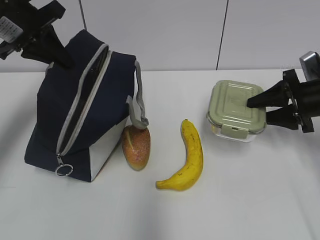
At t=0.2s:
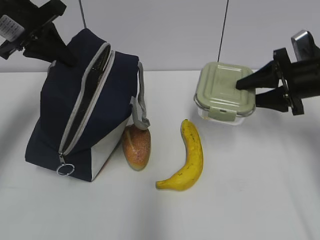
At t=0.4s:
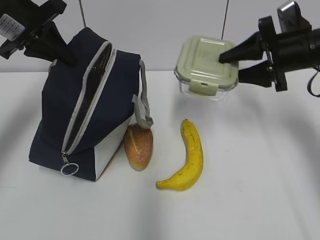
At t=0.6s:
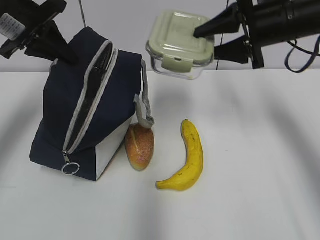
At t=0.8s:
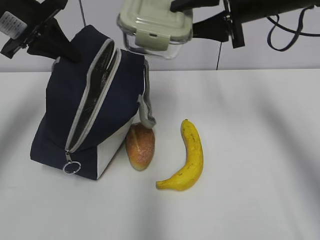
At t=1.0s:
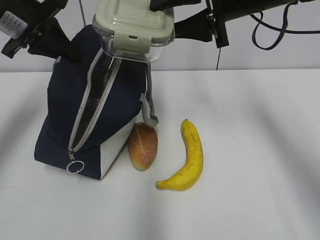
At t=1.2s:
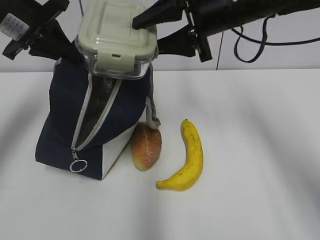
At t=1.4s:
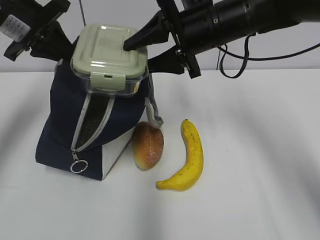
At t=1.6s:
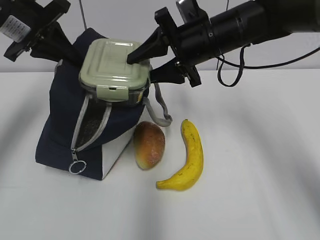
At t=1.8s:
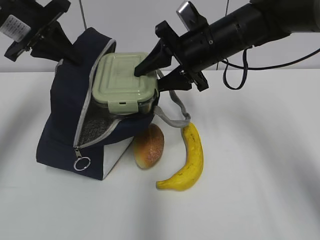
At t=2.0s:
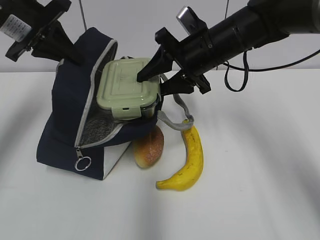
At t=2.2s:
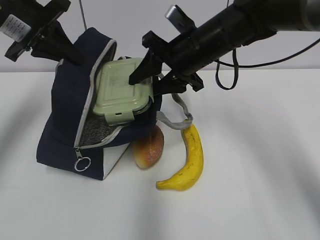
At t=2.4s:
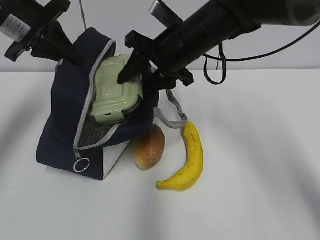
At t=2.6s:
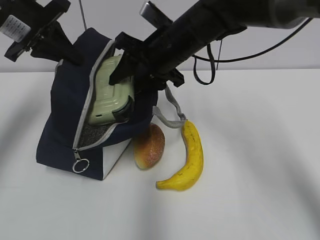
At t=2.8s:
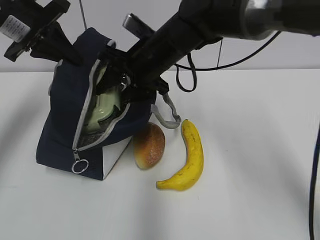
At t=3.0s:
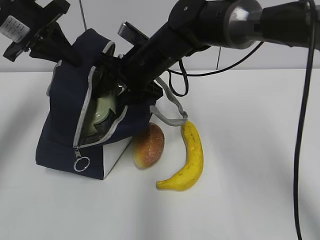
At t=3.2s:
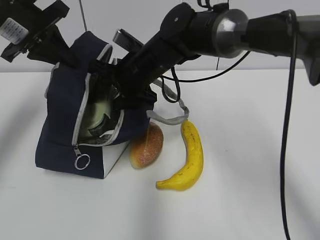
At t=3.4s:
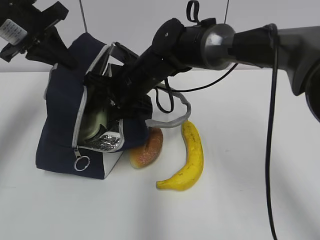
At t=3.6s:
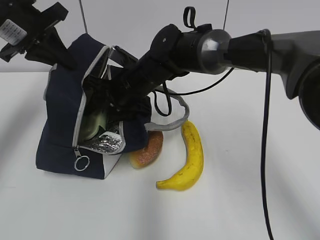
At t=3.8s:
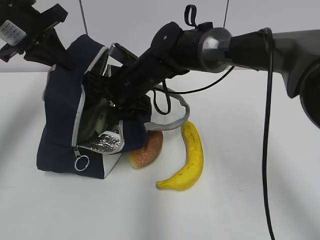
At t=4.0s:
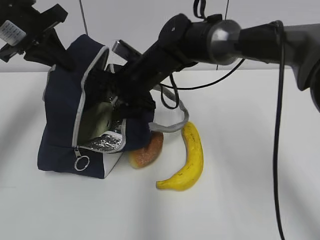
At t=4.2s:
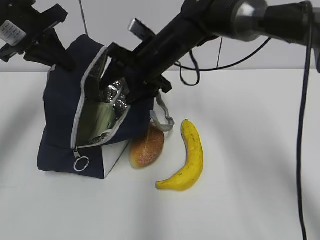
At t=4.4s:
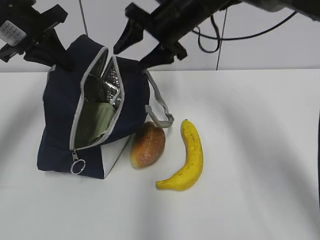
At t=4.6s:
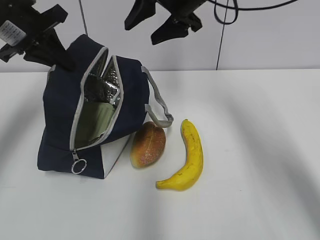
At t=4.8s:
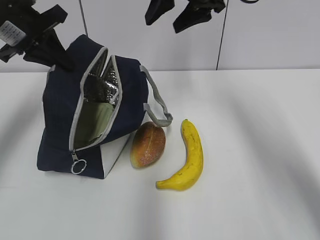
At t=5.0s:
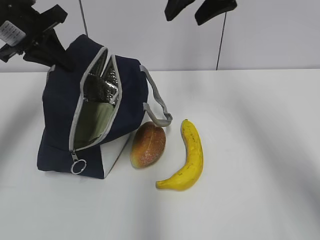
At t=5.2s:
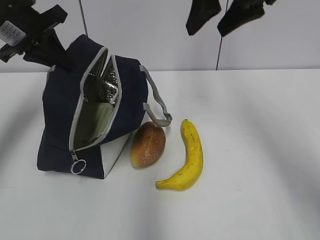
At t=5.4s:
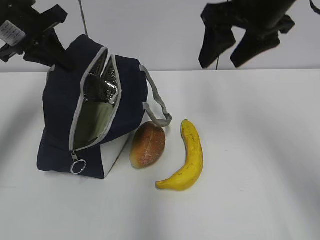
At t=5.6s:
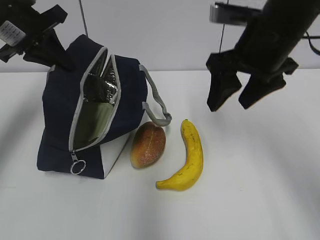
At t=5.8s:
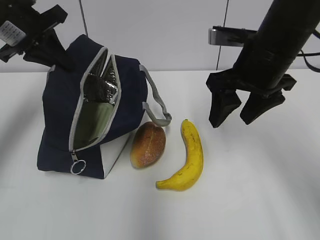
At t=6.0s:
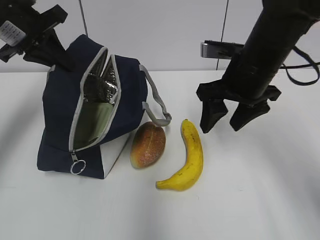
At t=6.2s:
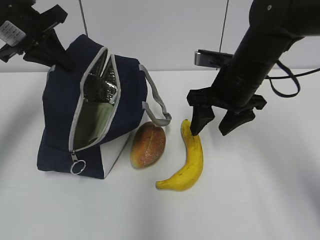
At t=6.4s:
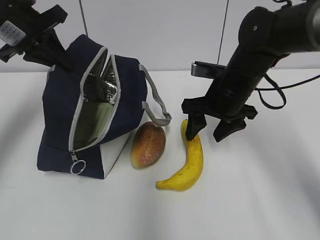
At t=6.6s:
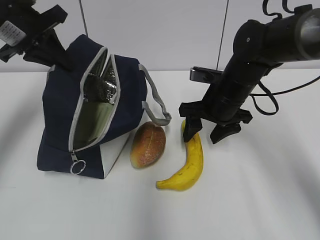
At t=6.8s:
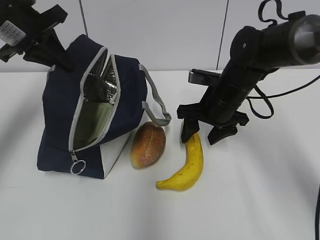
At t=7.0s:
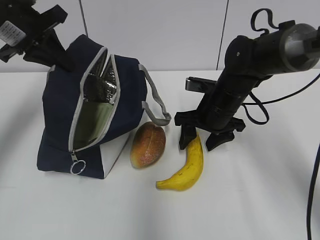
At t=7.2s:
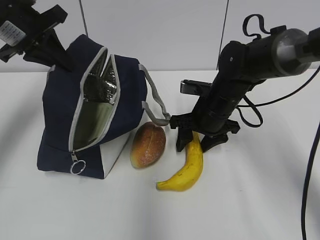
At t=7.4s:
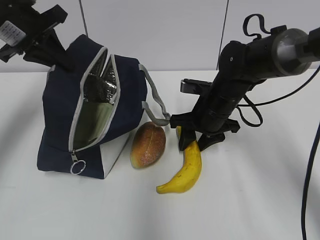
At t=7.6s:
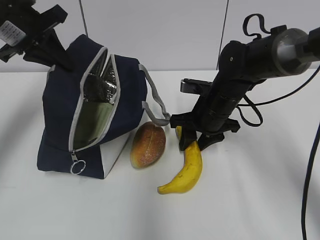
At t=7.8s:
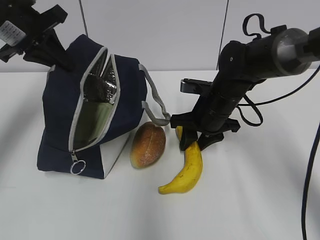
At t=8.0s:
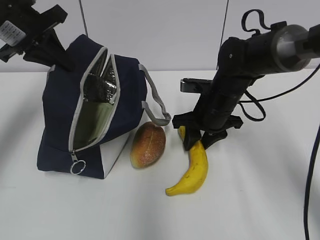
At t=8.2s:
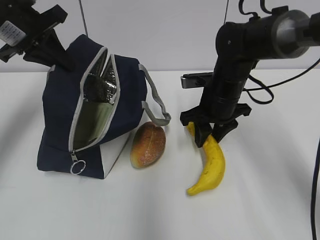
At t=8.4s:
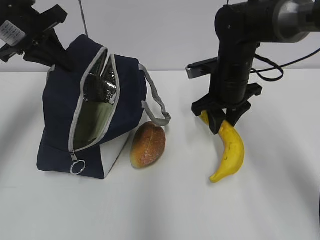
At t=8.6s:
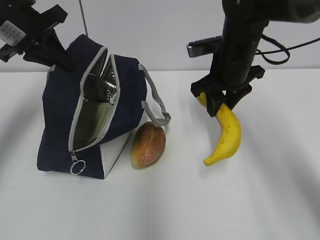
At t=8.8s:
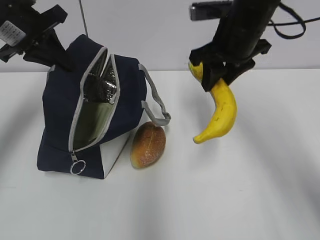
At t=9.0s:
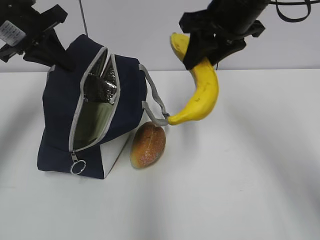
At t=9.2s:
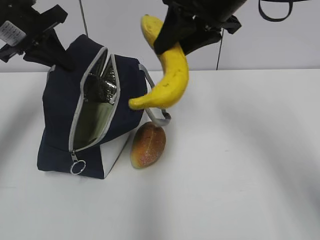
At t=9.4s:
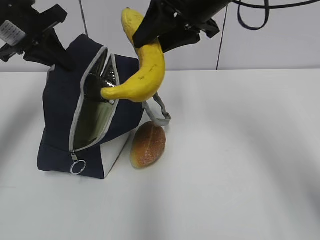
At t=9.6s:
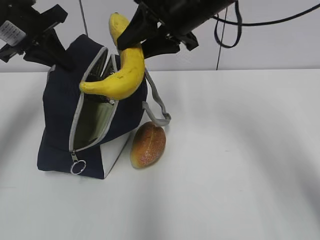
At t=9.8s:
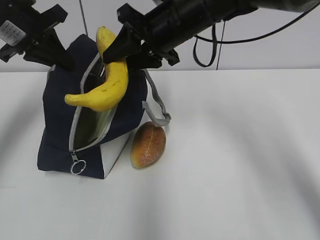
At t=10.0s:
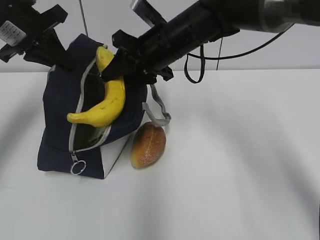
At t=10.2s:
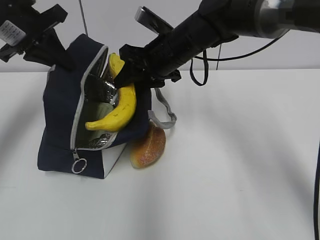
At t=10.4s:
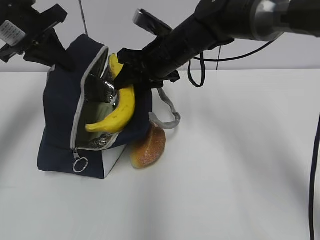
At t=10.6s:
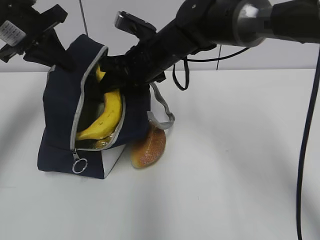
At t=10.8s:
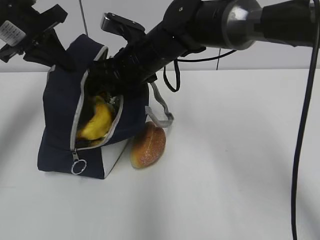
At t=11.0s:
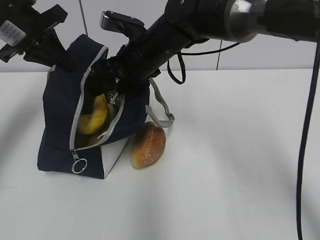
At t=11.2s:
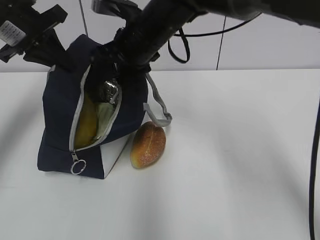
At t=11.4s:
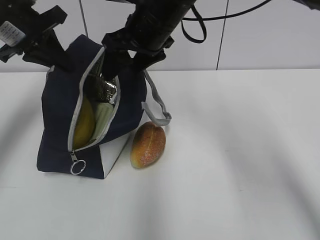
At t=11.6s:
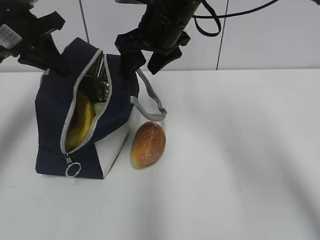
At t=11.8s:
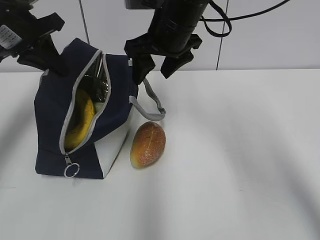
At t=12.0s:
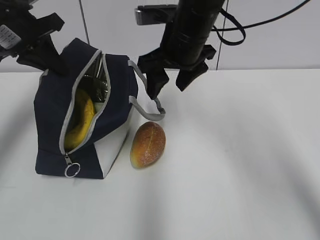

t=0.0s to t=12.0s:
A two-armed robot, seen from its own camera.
t=0.0s to t=1.6s: The right gripper moves to the left and upward, some 25 cm.
t=1.6s to t=3.0s: The right gripper goes some 10 cm to the left.
t=3.0s to t=4.4s: The right gripper shifts roughly 5 cm to the right.
t=4.4s to t=6.0s: The right gripper travels backward and to the right by some 15 cm, and goes upward and returns, some 10 cm each way.
t=6.0s to t=7.6s: The right gripper goes about 10 cm downward.
t=7.6s to t=9.0s: The right gripper heads upward, covering approximately 20 cm.
t=9.0s to t=10.4s: The right gripper shifts about 15 cm downward, to the left and forward.
t=10.4s to t=12.0s: The right gripper is displaced upward by about 5 cm, and opens its fingers.

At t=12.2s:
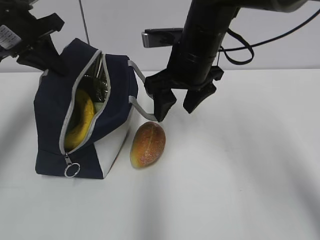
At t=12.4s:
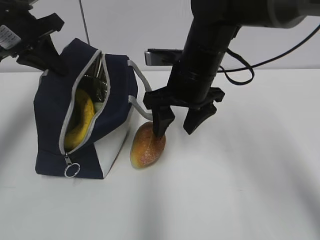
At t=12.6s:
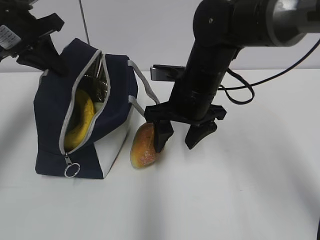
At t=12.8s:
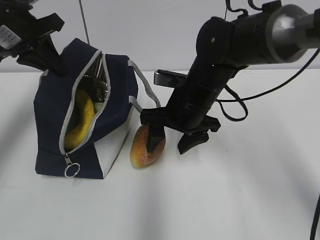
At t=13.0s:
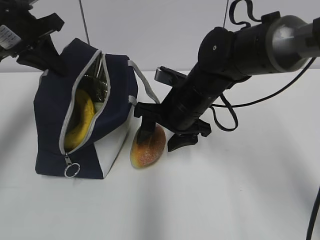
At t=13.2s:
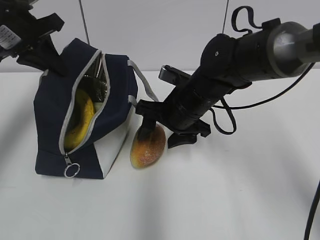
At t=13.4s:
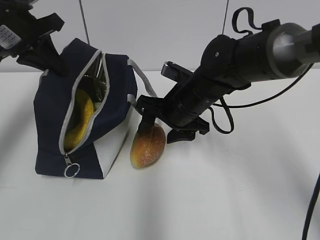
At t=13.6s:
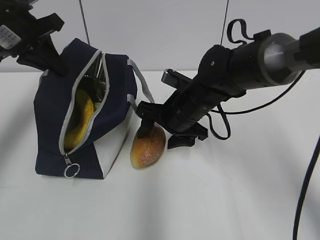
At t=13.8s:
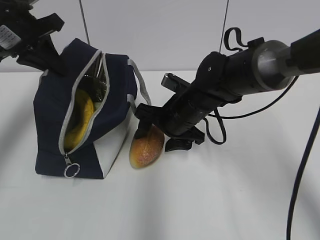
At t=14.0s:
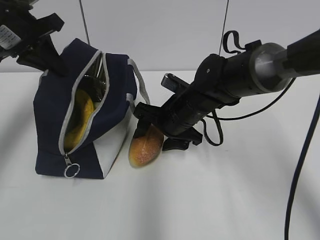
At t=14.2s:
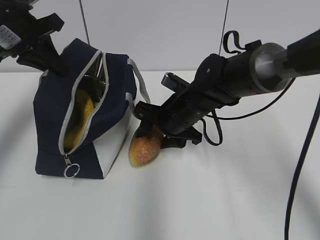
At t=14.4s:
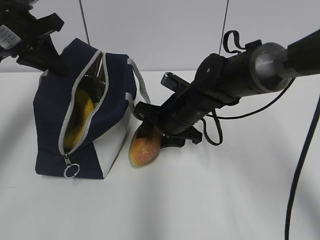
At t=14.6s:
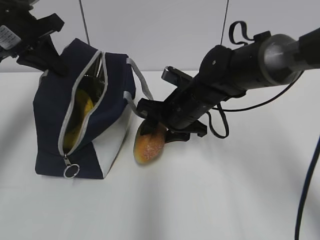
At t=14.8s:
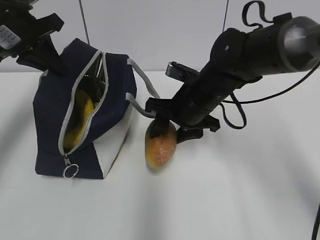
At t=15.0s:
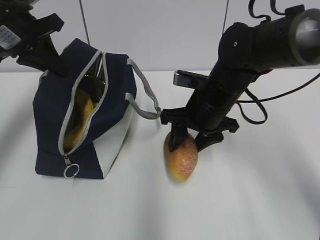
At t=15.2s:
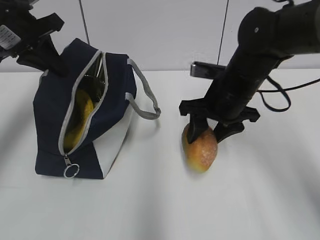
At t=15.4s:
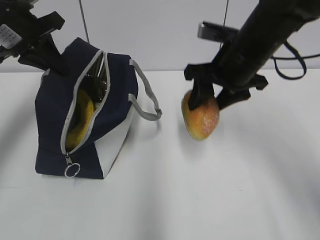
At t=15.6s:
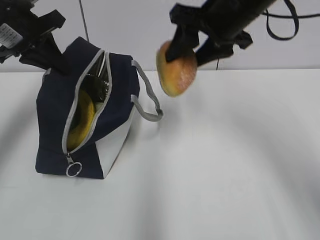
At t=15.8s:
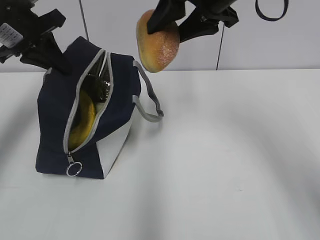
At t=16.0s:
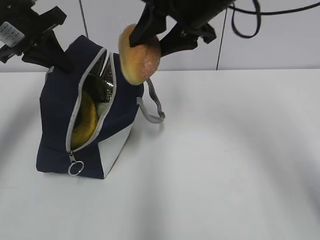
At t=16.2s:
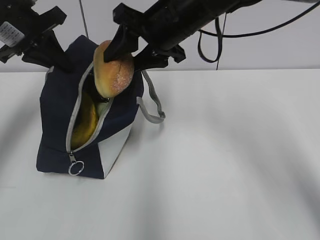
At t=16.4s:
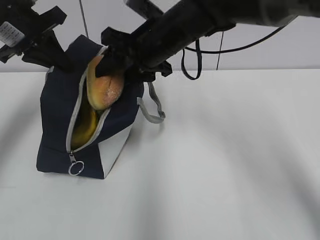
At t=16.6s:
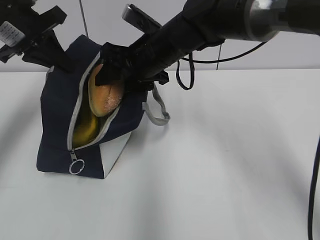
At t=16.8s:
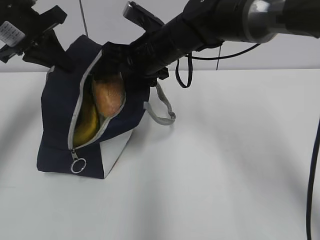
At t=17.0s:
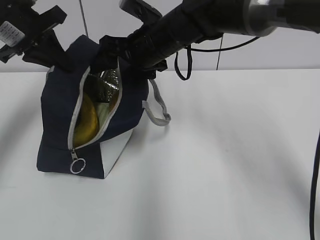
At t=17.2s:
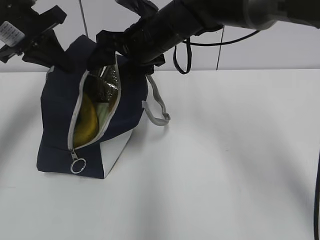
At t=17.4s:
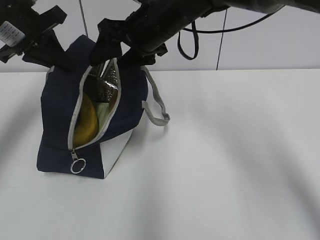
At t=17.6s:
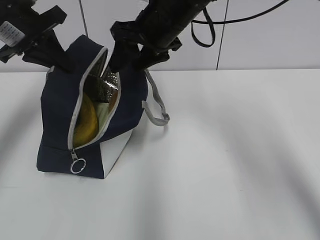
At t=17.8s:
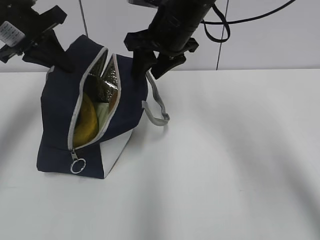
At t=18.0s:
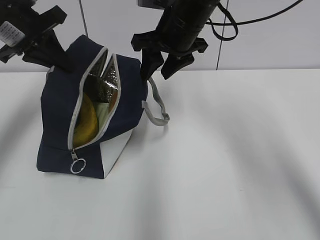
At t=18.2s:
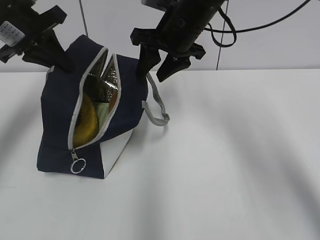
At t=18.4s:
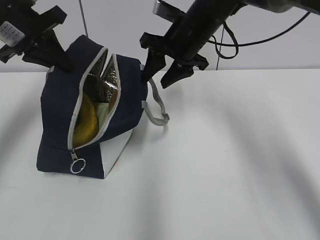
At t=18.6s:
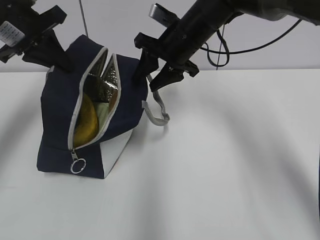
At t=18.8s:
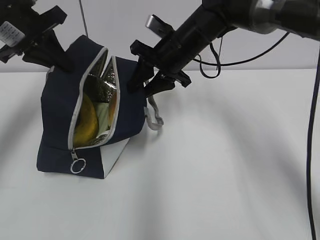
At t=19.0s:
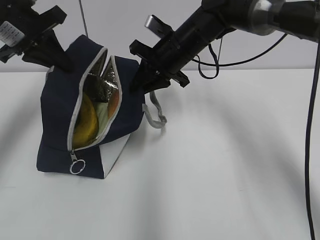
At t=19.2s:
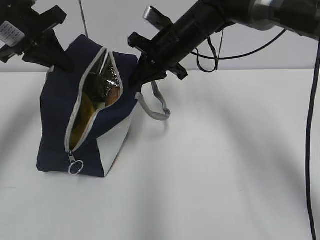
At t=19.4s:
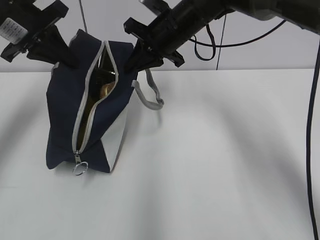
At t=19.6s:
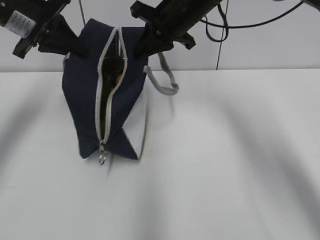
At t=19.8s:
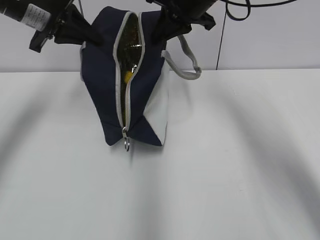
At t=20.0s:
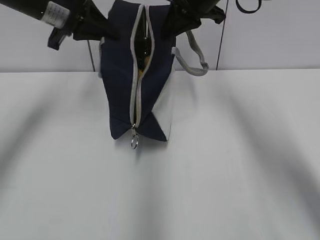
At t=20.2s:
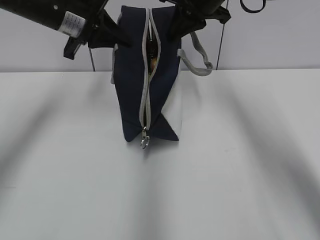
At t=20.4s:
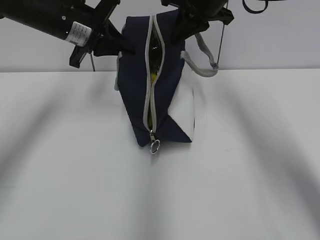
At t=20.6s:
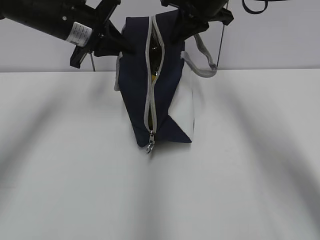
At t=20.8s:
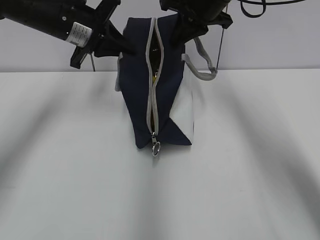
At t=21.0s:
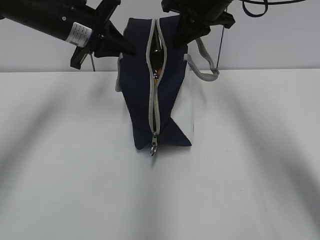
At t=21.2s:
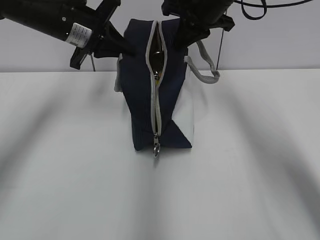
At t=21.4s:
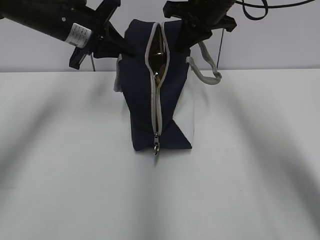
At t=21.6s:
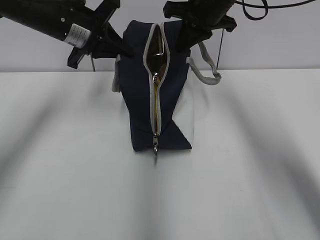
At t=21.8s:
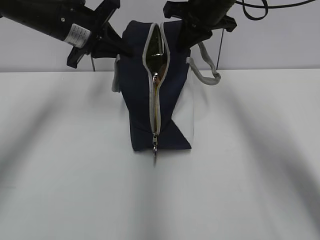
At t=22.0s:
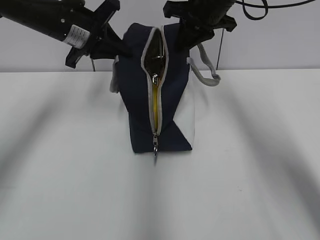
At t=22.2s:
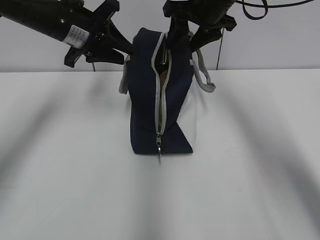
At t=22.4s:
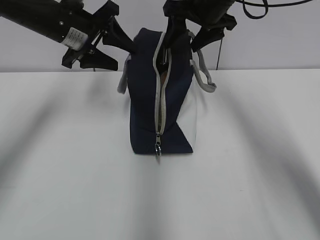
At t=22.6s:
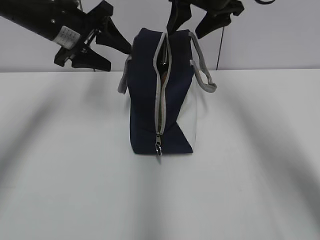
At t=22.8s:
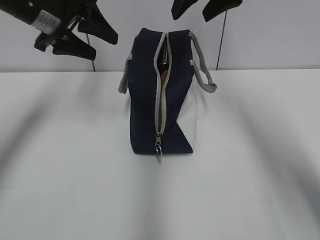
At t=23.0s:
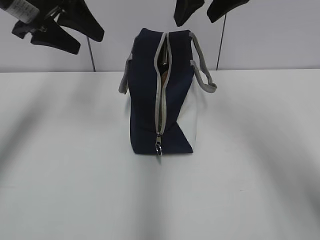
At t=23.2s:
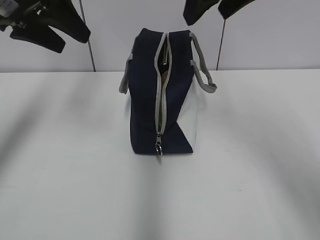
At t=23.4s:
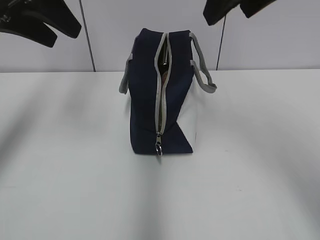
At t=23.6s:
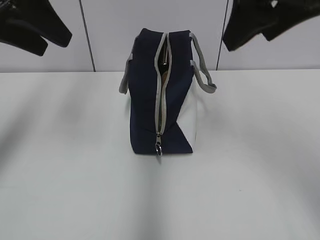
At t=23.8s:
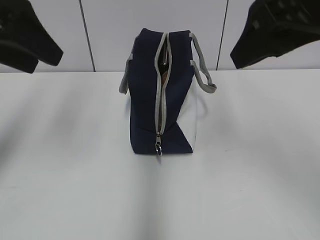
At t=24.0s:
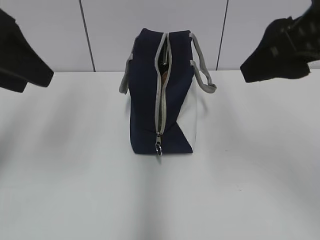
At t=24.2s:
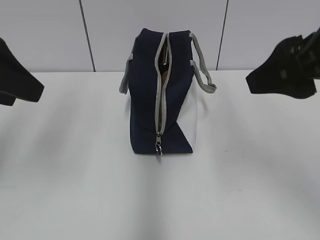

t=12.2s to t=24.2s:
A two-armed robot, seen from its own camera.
t=12.2s to t=13.8s: The right gripper shifts some 10 cm downward.
t=13.8s to t=15.2s: The right gripper is displaced to the right by about 5 cm.
t=15.2s to t=16.6s: The right gripper goes some 10 cm to the left and forward, and goes upward and returns, roughly 15 cm each way.
t=16.6s to t=18.2s: The right gripper changes place by about 5 cm.
t=18.2s to t=19.8s: The right gripper moves some 5 cm, and closes its fingers.
t=19.8s to t=21.2s: The left gripper changes place by roughly 5 cm.
t=21.2s to t=22.6s: The left gripper opens its fingers. The right gripper opens its fingers.
t=22.6s to t=24.2s: Both grippers move backward, about 20 cm.
